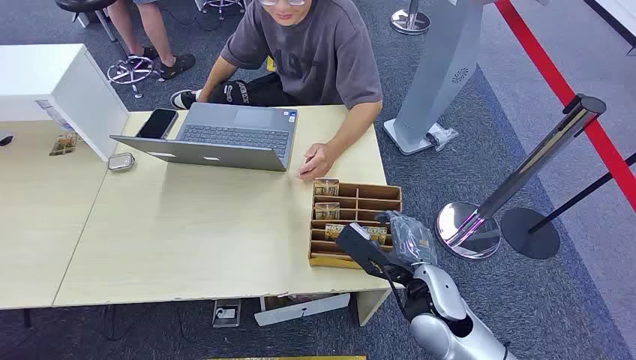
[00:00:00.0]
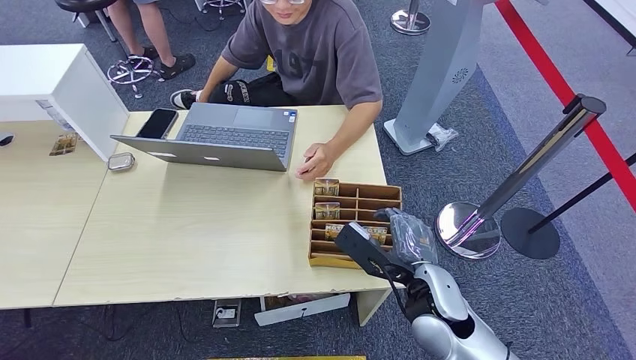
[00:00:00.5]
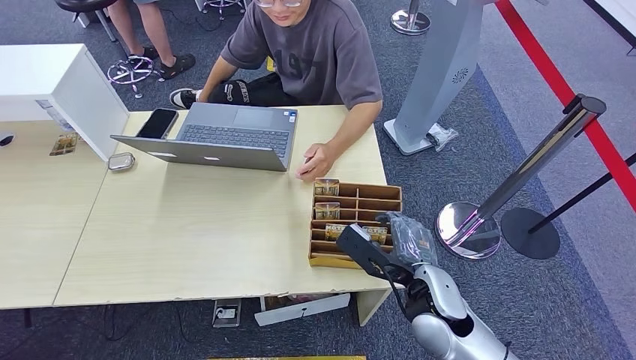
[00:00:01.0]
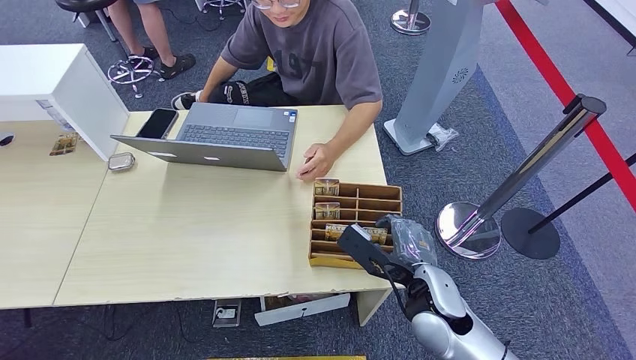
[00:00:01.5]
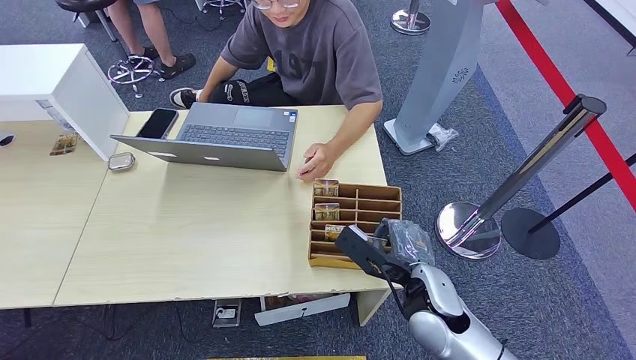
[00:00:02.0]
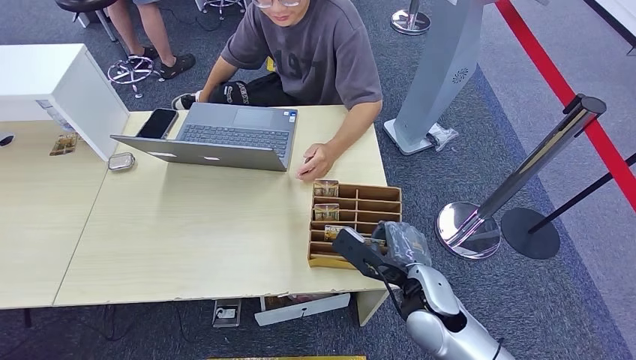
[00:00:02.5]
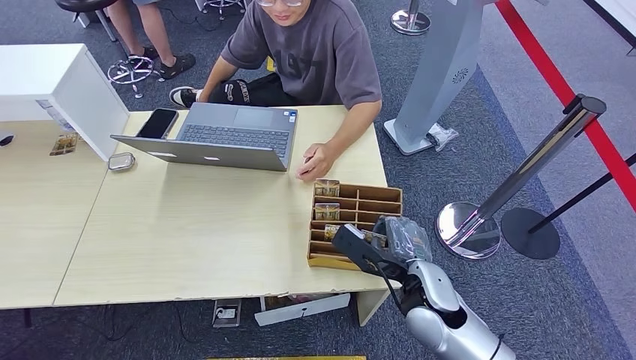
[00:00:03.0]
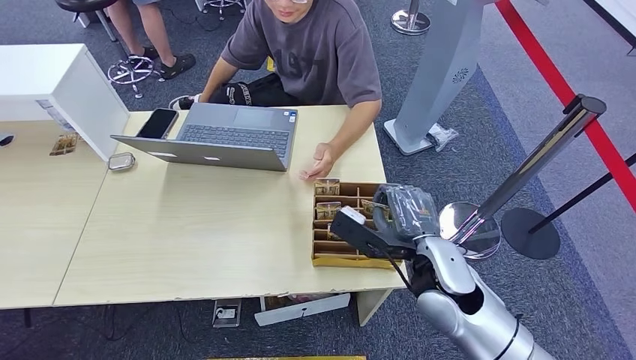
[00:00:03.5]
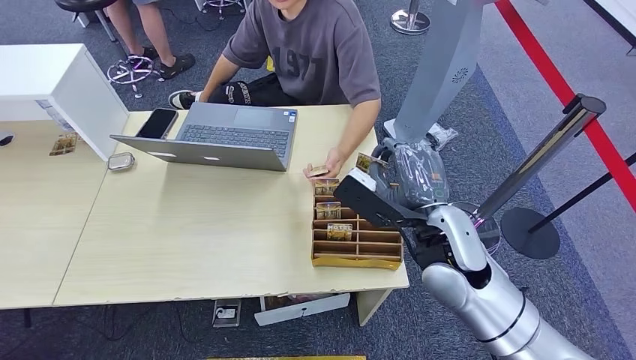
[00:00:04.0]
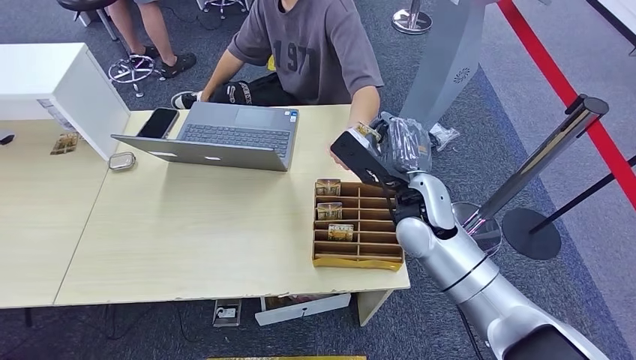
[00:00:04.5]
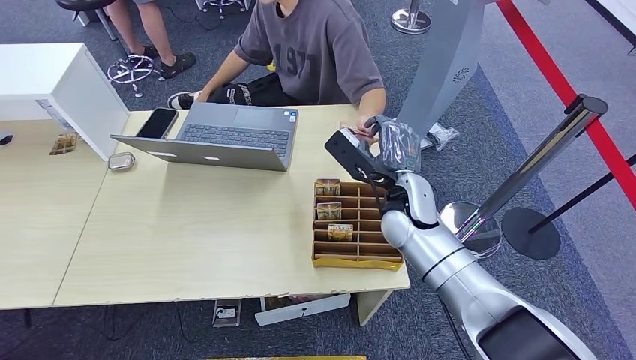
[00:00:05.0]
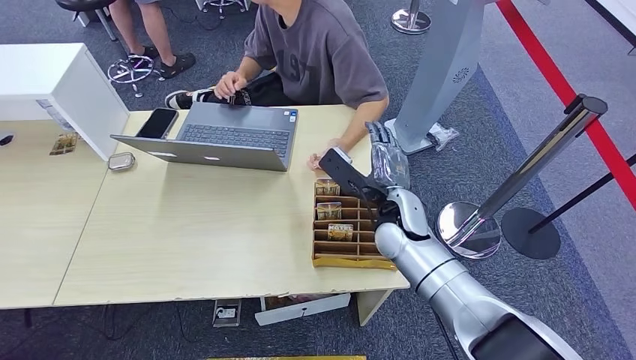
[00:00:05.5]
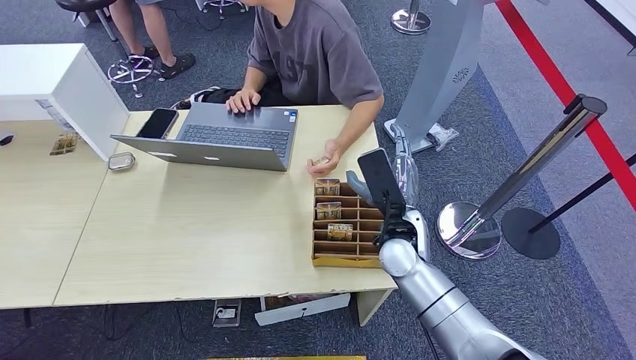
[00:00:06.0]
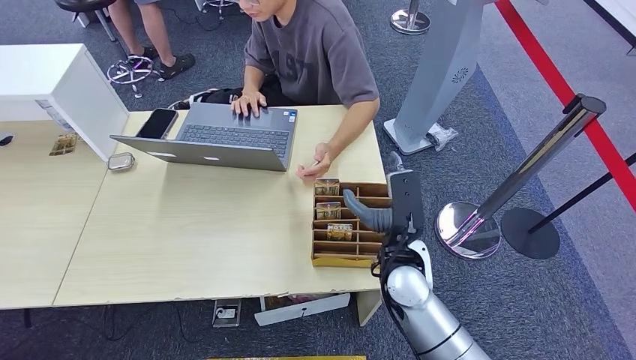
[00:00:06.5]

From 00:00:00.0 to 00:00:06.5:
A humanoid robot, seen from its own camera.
Task of the whole recording: Pick up the card and hand it to the target person.
Step, from 00:00:00.0 to 00:00:04.5: Pick up the key card from the card box.
Step, from 00:00:05.0 to 00:00:06.0: Hand the key card to the target.
From 00:00:02.0 to 00:00:04.5: The right hand heads forward and upward, covering some 15 cm.
From 00:00:04.5 to 00:00:06.5: The right hand shifts approximately 10 cm downward and backward.
